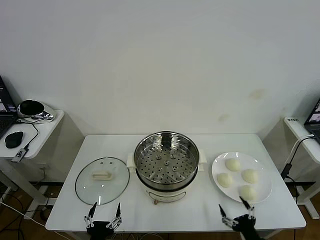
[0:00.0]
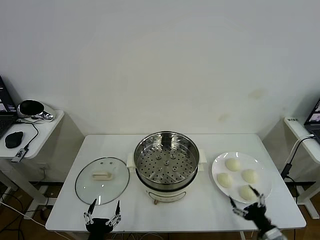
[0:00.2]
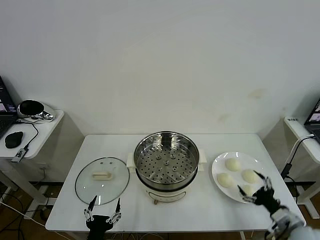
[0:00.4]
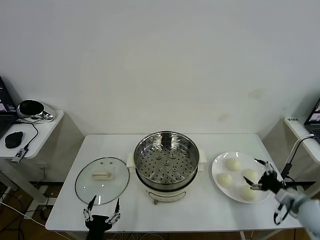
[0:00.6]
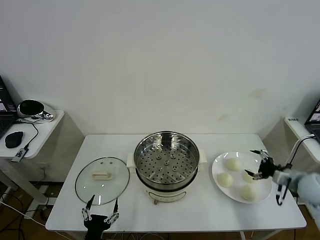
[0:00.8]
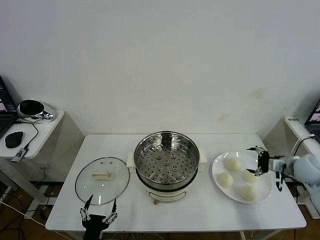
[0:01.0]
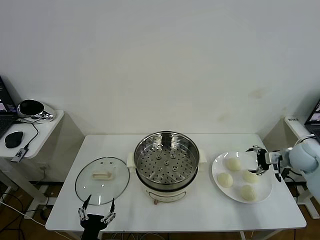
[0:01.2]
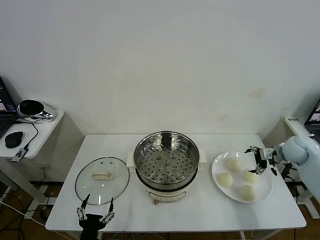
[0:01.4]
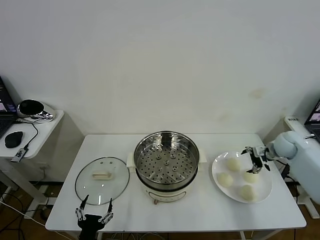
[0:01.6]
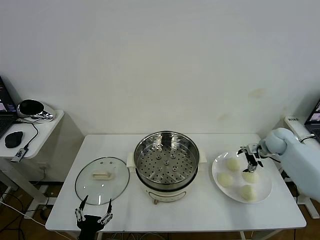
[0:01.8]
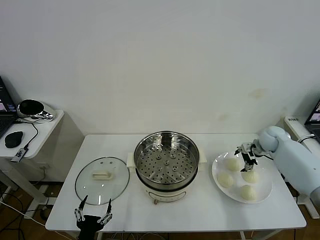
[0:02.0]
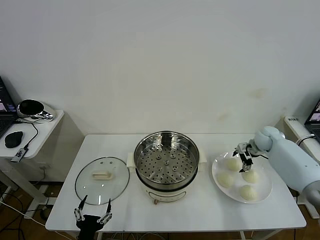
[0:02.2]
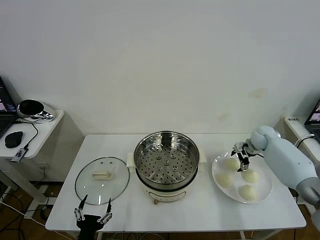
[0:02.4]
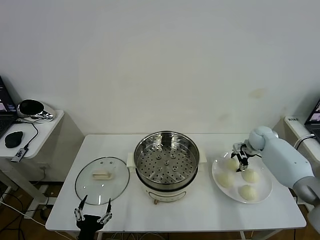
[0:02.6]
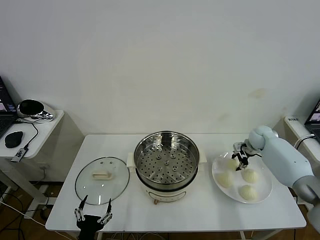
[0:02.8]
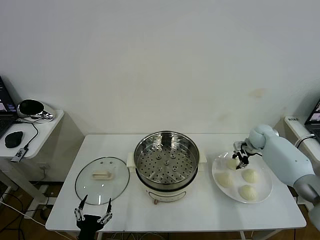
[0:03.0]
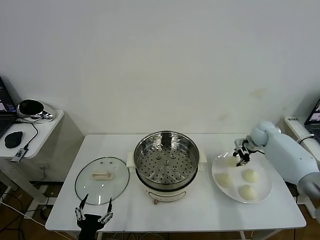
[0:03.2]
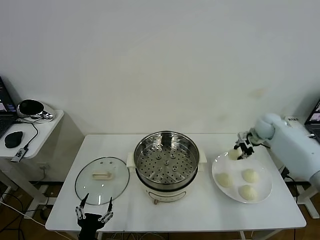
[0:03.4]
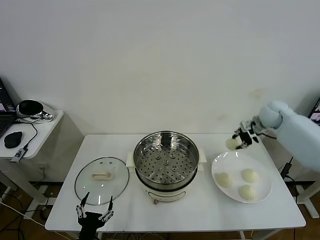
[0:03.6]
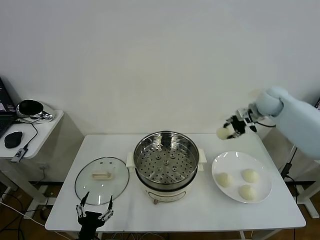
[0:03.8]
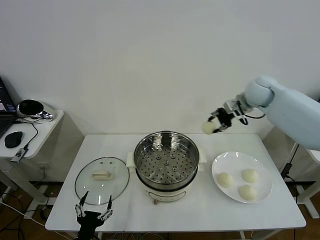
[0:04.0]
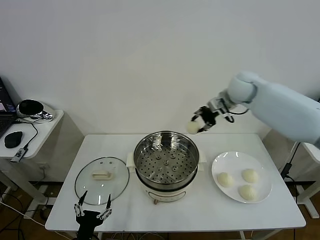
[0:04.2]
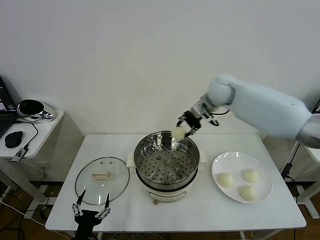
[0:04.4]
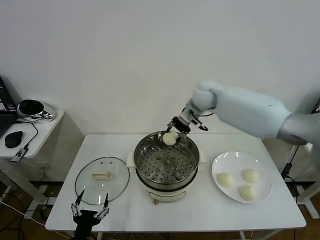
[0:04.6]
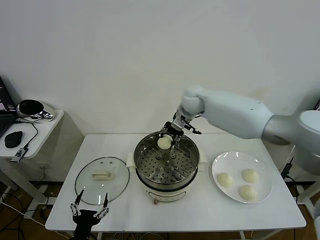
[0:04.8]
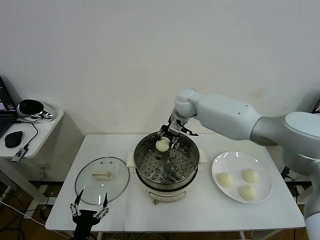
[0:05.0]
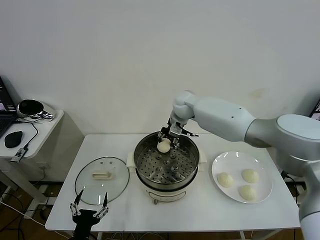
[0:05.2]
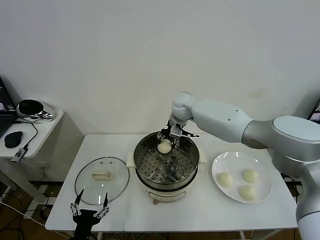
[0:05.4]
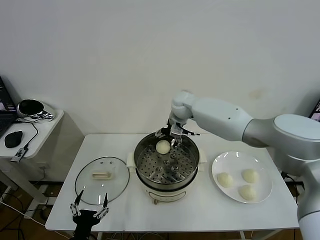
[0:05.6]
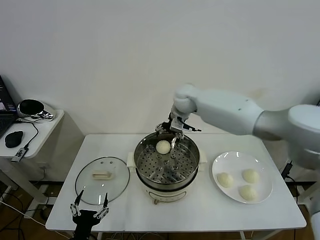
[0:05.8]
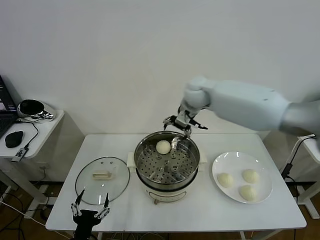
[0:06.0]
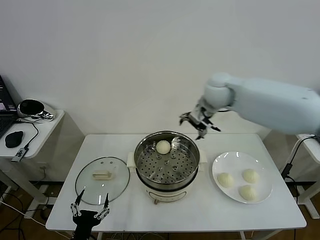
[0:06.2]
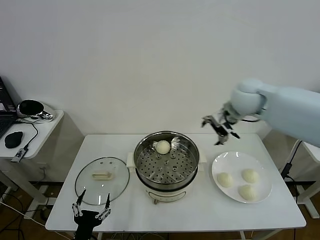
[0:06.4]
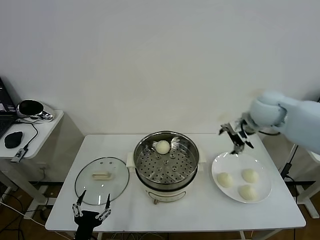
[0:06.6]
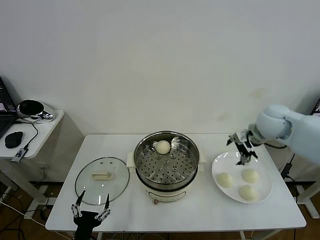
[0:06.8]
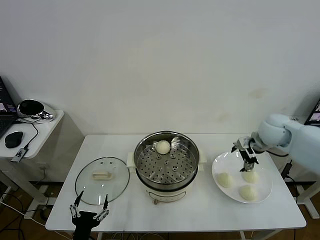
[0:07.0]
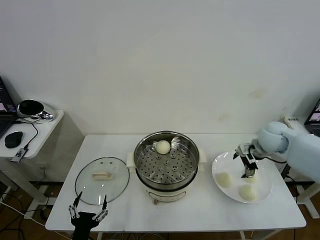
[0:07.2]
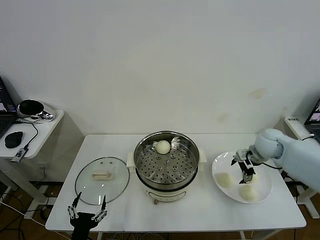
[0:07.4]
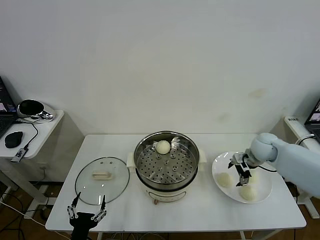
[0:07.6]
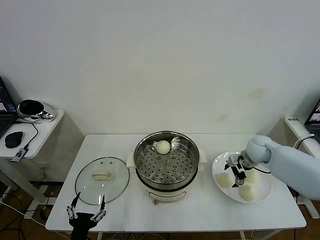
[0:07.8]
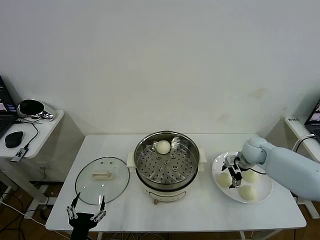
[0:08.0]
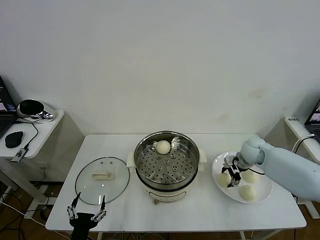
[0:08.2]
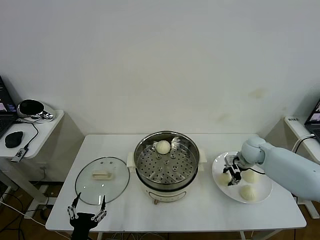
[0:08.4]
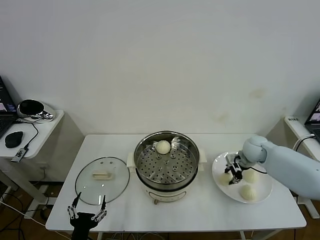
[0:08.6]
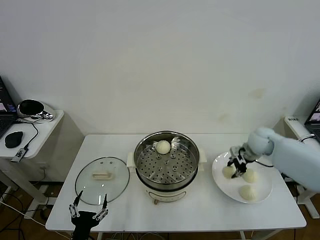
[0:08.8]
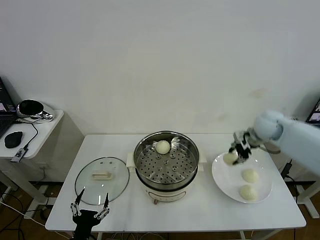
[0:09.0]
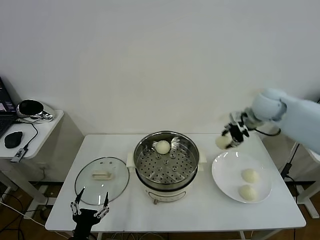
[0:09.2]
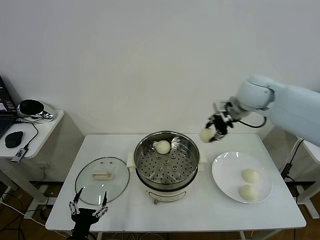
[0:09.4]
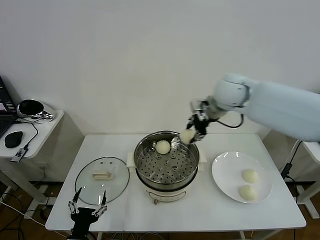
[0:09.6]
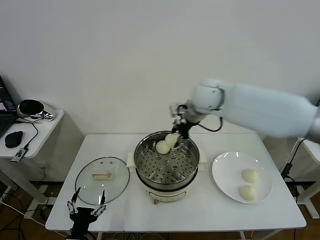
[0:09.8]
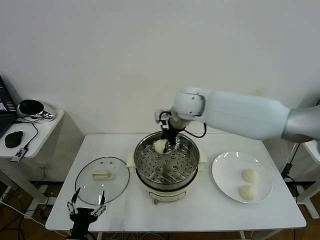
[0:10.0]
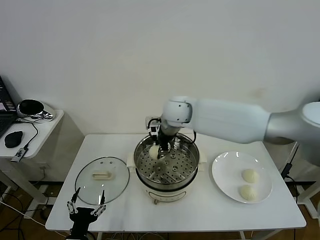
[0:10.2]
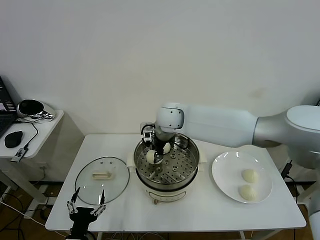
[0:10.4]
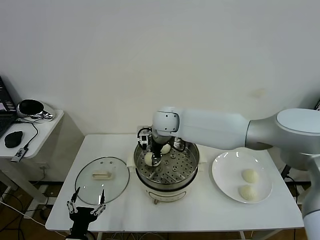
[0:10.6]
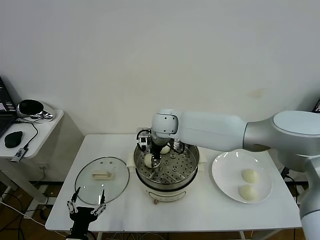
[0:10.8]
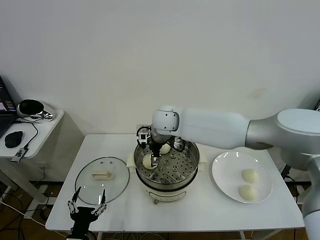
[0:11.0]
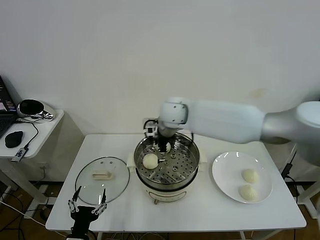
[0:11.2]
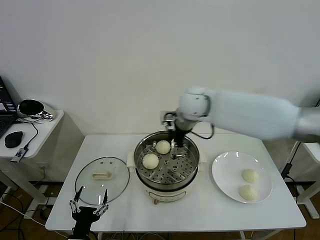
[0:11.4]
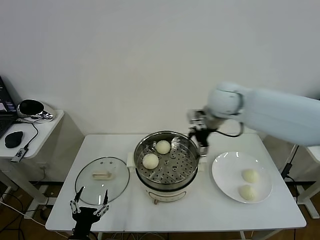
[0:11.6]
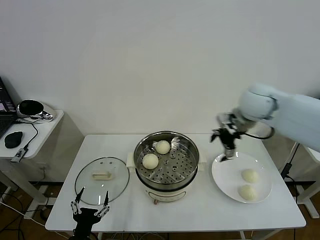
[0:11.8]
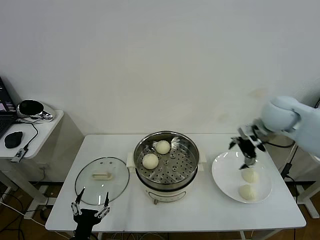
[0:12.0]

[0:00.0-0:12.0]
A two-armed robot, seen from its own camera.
Task of the whole recording: take steamed baozi put them in steamer then cover it.
Step, 0:00.0 to 0:02.8: Grasp the baozi in the plate with right gripper.
Step, 0:03.0 to 0:05.6: Place the baozi on the steamer with right gripper.
Step, 0:05.8 to 0:08.4: Grasp the baozi in the plate with right gripper.
Step, 0:08.6 to 0:11.0: Place the baozi on the steamer with right gripper.
0:01.6 to 0:03.0: The right gripper is displaced forward by about 5 cm, and closes its fingers.
0:03.0 to 0:04.4: The right gripper goes some 30 cm to the left and upward.
0:04.4 to 0:06.0: The right gripper goes downward and returns, about 5 cm each way, and opens.
0:06.0 to 0:07.6: The right gripper moves to the right and downward, approximately 30 cm.
0:07.6 to 0:09.0: The right gripper travels upward by about 15 cm, and closes its fingers.
0:09.0 to 0:10.4: The right gripper shifts some 35 cm to the left.
0:10.4 to 0:12.0: The right gripper is displaced to the right by some 35 cm, and opens its fingers.

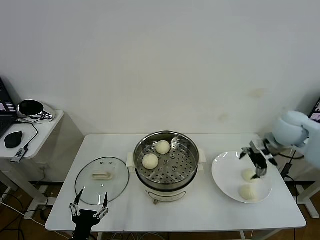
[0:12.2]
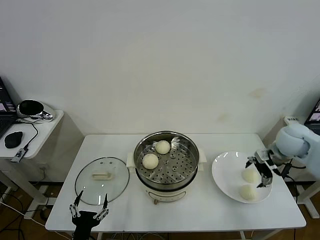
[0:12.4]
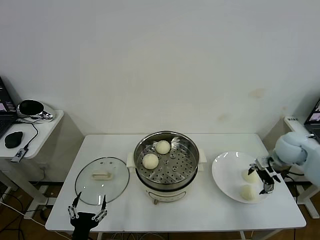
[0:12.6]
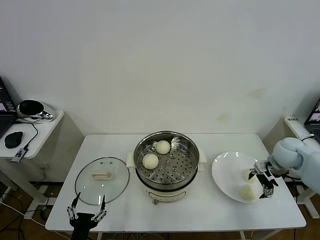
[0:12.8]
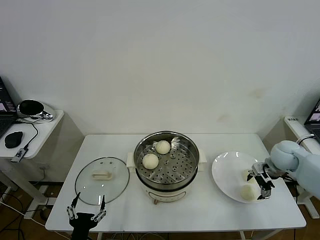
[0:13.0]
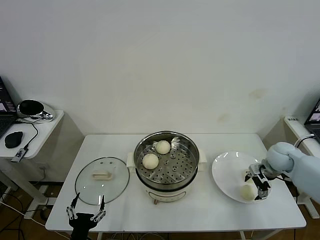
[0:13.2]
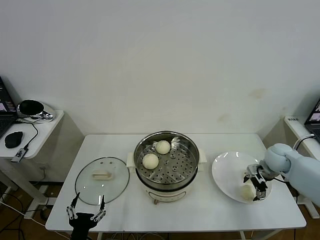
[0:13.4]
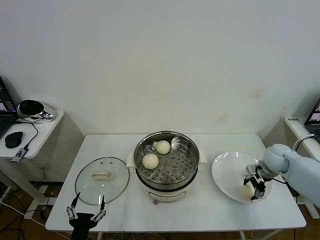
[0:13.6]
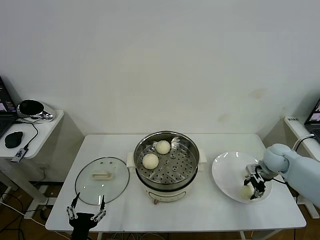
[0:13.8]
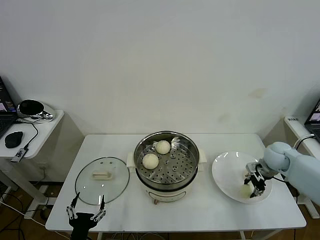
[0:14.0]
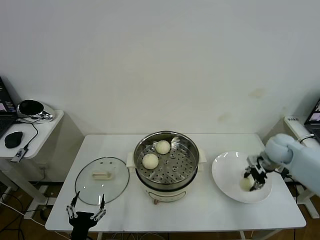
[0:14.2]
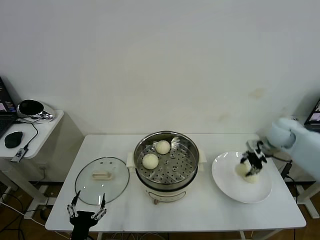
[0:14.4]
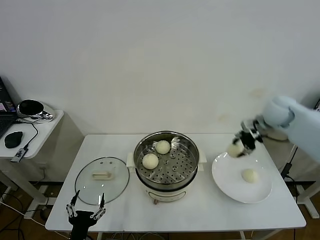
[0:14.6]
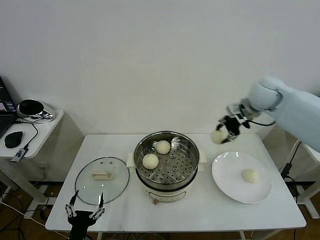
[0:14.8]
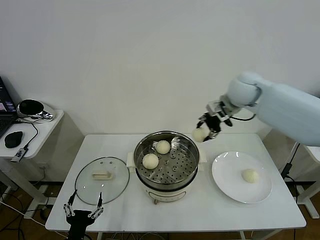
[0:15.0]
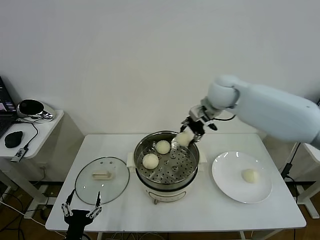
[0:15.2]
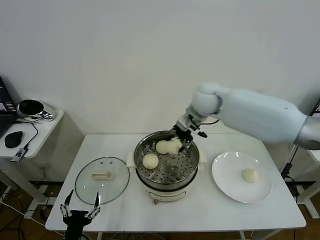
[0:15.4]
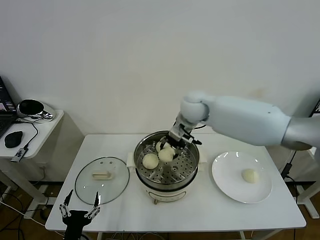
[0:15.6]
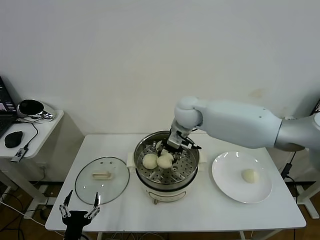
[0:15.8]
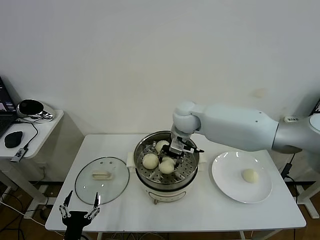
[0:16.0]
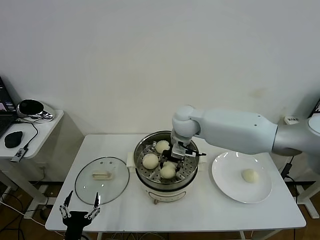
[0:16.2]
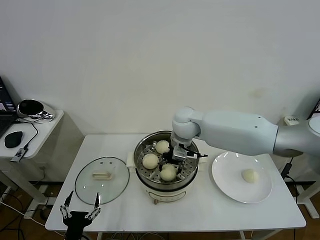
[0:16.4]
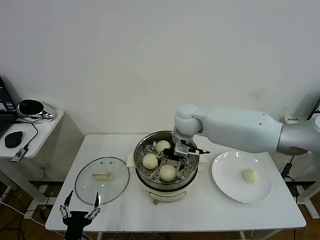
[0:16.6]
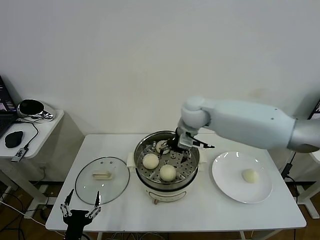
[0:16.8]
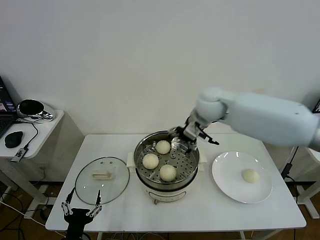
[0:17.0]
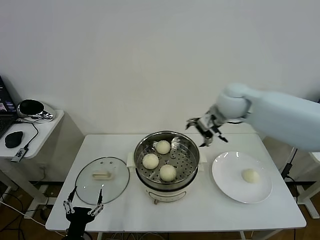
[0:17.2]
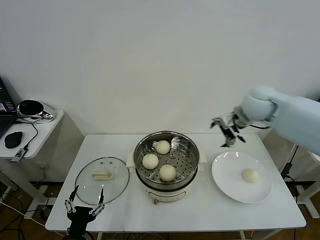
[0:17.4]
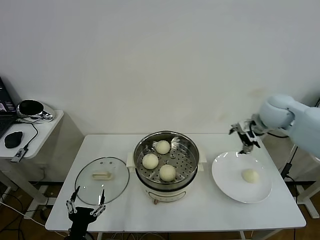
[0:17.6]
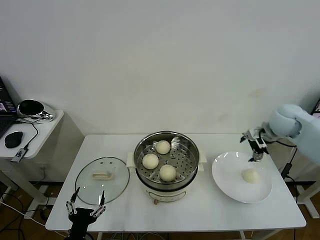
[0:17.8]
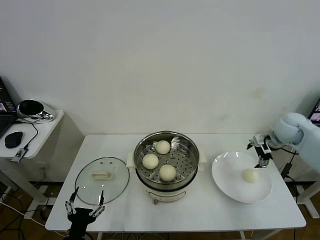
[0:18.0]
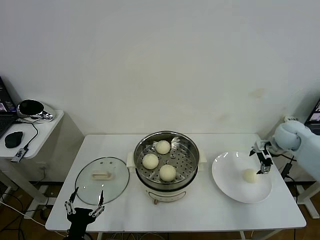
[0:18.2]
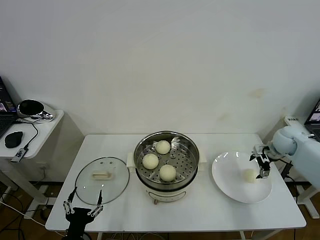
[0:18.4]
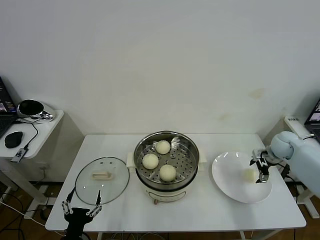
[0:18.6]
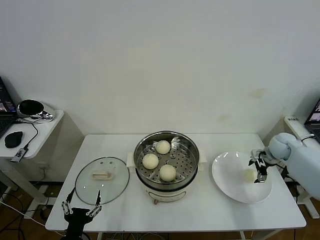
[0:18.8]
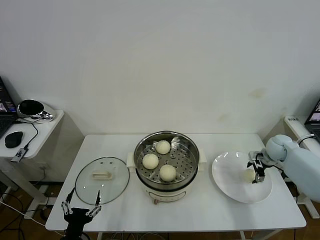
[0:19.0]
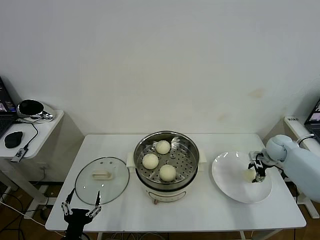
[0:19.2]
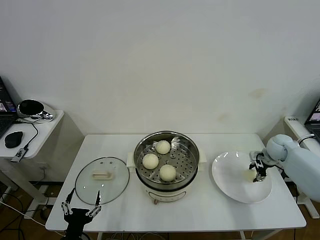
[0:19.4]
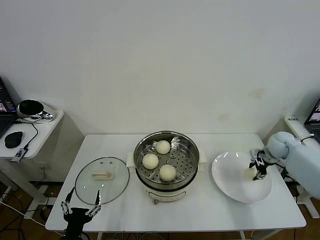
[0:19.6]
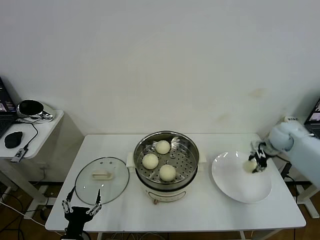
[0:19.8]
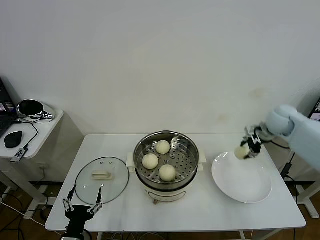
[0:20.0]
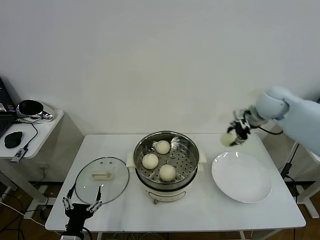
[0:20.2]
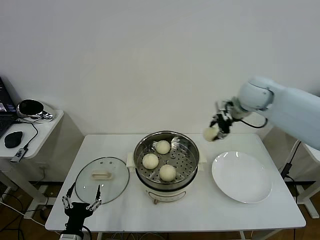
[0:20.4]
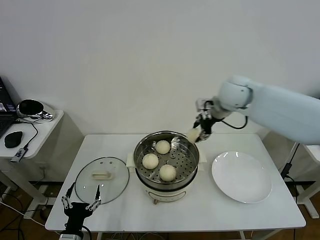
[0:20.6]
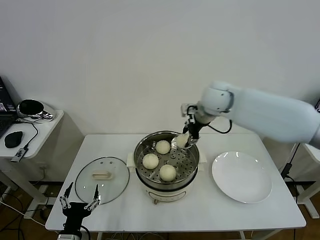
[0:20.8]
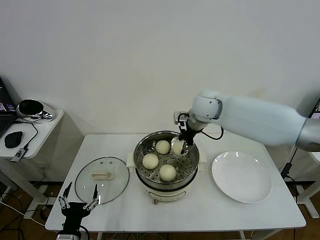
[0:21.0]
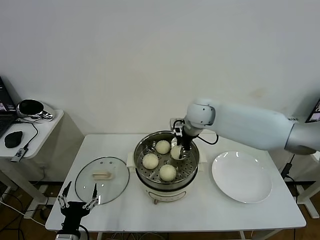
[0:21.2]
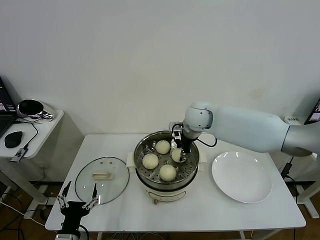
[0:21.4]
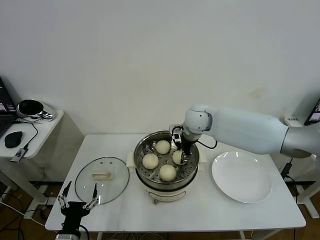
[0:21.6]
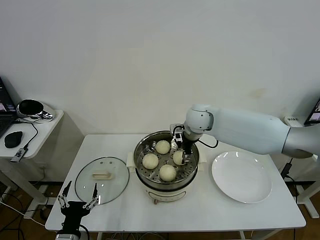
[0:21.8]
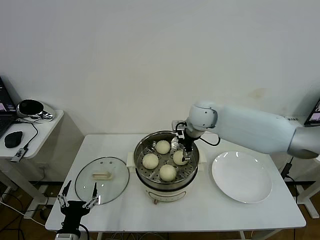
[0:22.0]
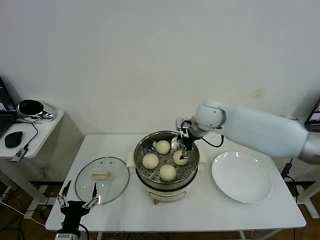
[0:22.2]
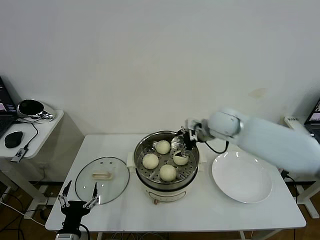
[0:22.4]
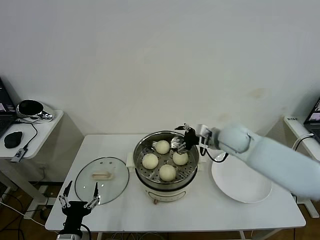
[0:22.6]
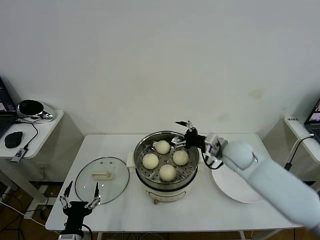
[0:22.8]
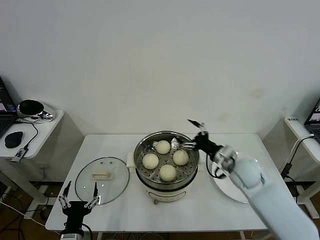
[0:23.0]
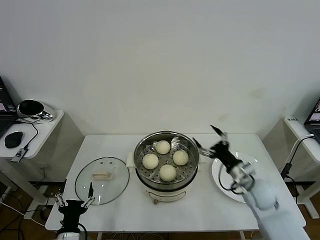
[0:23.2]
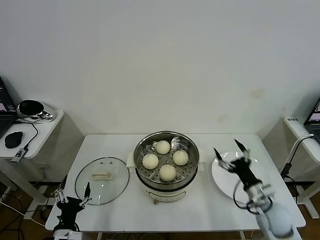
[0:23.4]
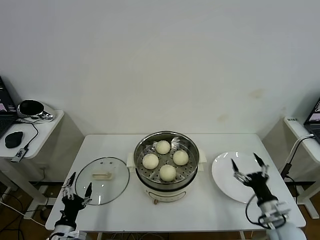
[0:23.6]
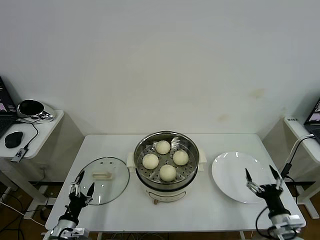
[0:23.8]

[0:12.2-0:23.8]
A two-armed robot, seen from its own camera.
Task of the whole recording: take steamed baozi put them in steamer then cover it.
Step, 0:12.2 to 0:14.0: Grasp the baozi in the plate with right gripper.
Step, 0:14.2 to 0:16.4: Place the baozi on the steamer with right gripper.
Step, 0:16.8 to 0:19.4: Grasp the baozi in the plate with right gripper.
Step, 0:19.6 to 0:21.8: Place the baozi on the steamer with right gripper.
0:12.2 to 0:13.6: The right gripper is displaced downward by roughly 15 cm, and closes up.
0:13.6 to 0:15.0: The right gripper travels upward and to the left by some 30 cm.
0:15.0 to 0:16.6: The right gripper shifts about 15 cm to the left and downward, and opens its fingers.
0:16.6 to 0:18.0: The right gripper shifts roughly 35 cm to the right.
0:18.0 to 0:19.4: The right gripper moves downward, some 10 cm, and closes.
0:19.4 to 0:21.0: The right gripper is displaced to the left and upward by about 35 cm.
0:21.0 to 0:22.4: The right gripper heads to the right, covering roughly 5 cm, and opens.
0:22.4 to 0:23.8: The right gripper goes about 40 cm backward, downward and to the right; the left gripper is displaced to the left, downward and forward by some 10 cm.
